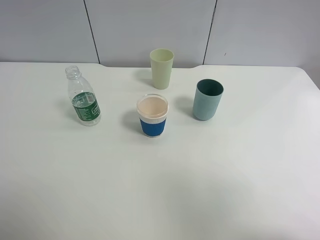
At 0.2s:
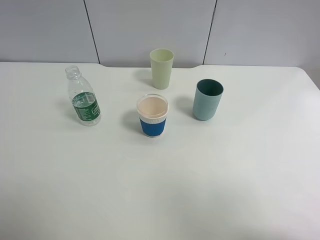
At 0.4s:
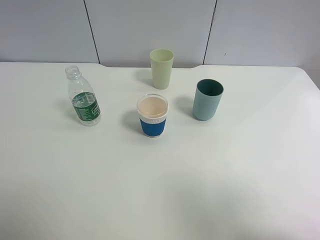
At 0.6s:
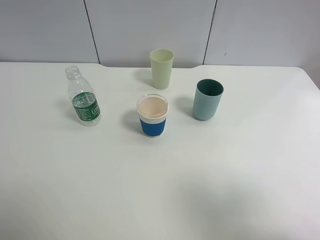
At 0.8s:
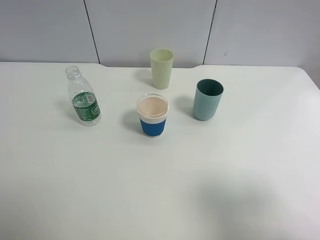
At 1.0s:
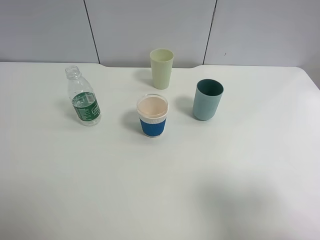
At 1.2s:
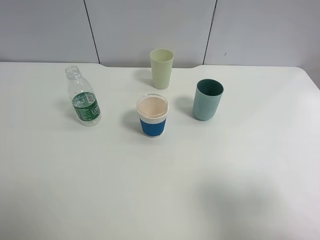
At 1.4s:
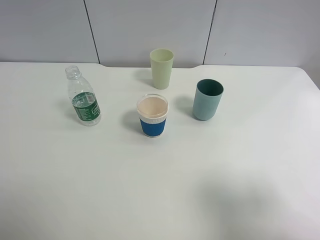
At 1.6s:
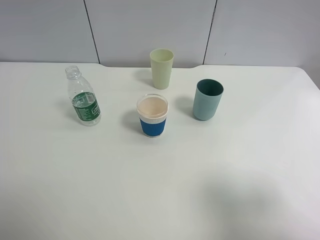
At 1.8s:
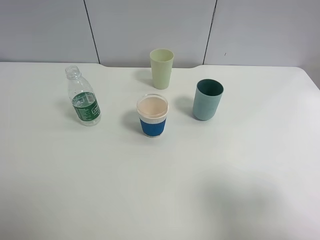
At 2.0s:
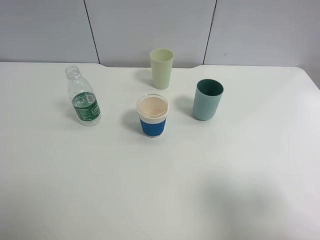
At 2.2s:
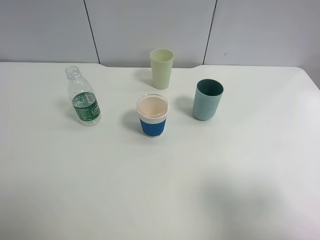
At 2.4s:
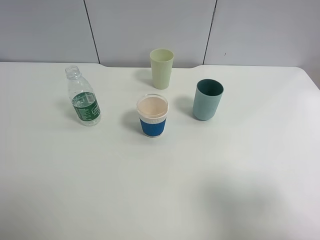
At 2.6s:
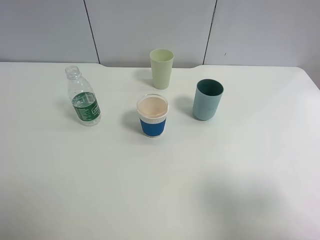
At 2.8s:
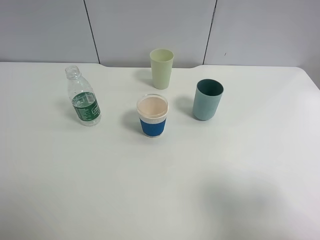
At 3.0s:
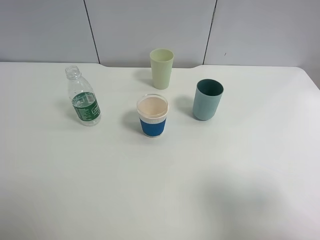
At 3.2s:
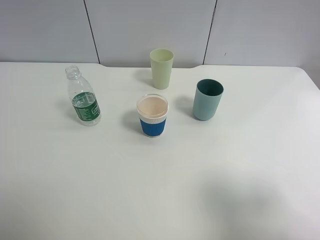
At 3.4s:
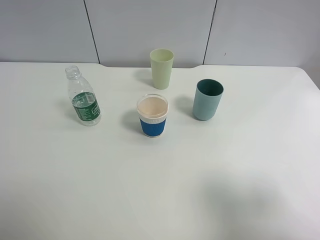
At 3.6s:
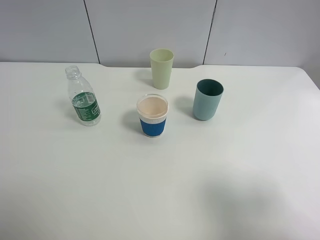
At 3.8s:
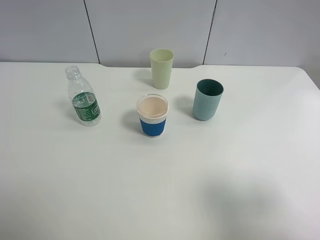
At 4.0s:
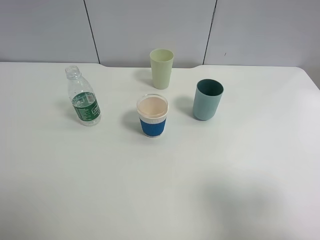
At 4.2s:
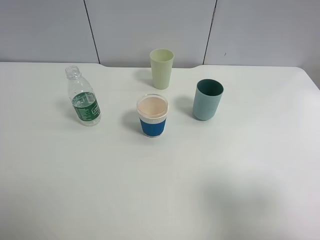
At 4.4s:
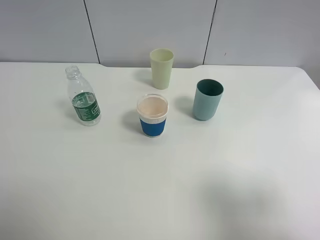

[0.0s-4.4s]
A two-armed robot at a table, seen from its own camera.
Task of the whole recording: use a clamp to hold the bottle of the drink, pour the beverage into a random cup, then clamp the cup containing the drink and pour the drink into another random cup.
0.0s to 1.4s: The right gripper moves downward, about 10 cm.
1.4s to 4.4s: Neither gripper changes place.

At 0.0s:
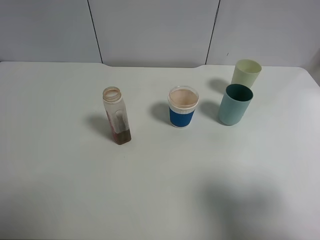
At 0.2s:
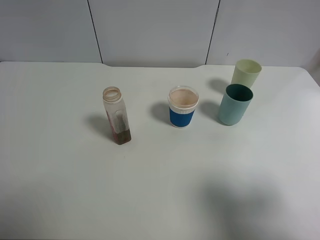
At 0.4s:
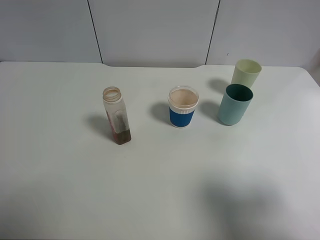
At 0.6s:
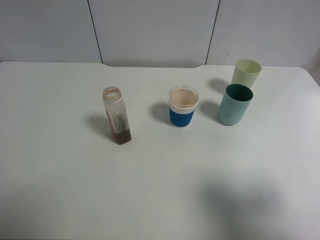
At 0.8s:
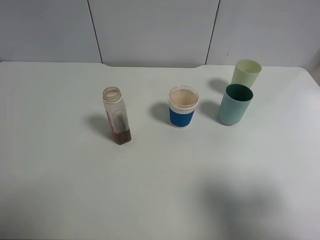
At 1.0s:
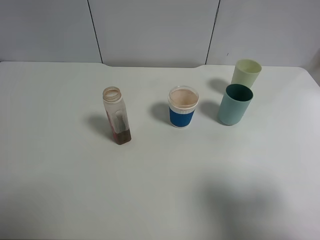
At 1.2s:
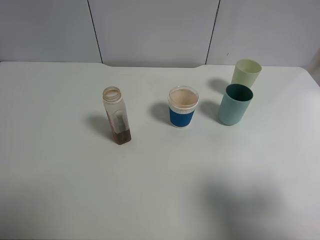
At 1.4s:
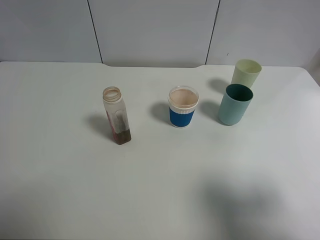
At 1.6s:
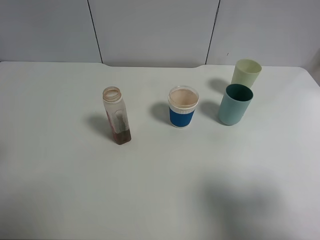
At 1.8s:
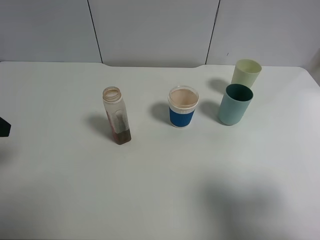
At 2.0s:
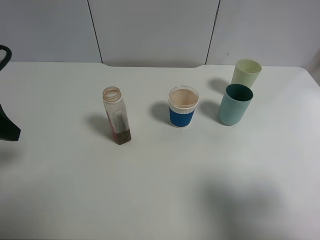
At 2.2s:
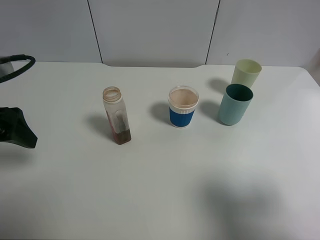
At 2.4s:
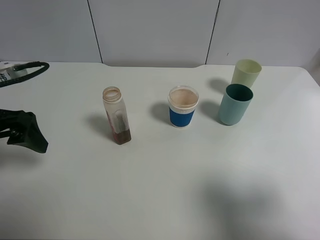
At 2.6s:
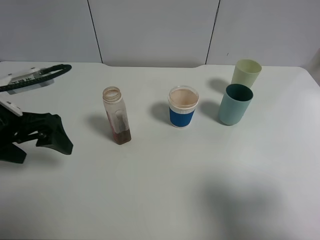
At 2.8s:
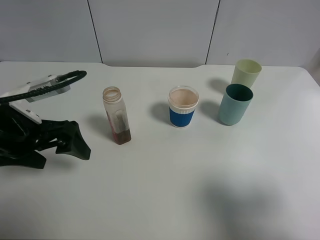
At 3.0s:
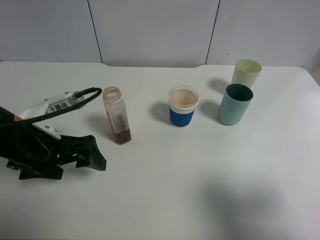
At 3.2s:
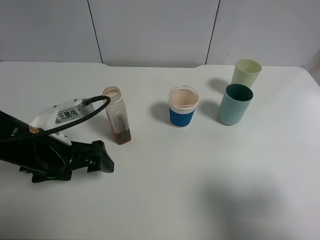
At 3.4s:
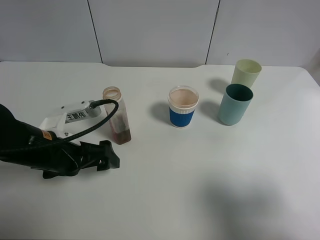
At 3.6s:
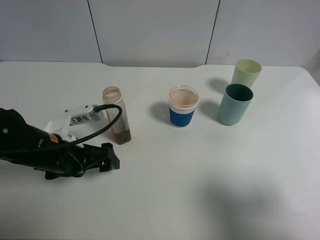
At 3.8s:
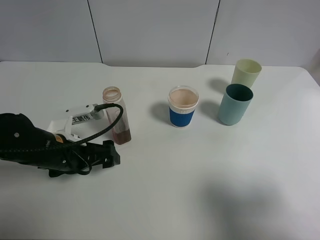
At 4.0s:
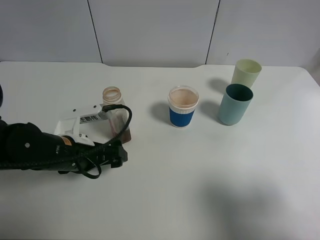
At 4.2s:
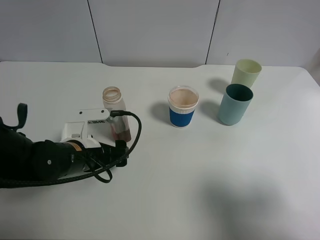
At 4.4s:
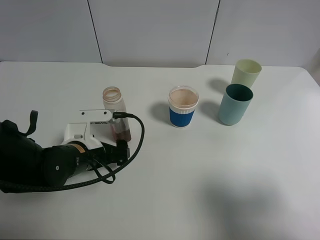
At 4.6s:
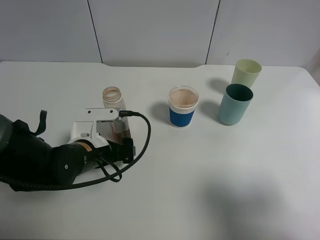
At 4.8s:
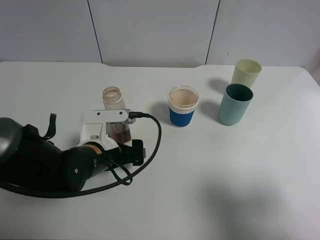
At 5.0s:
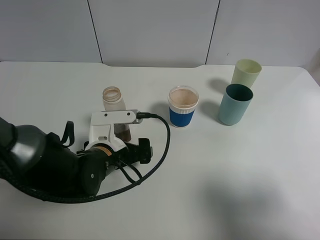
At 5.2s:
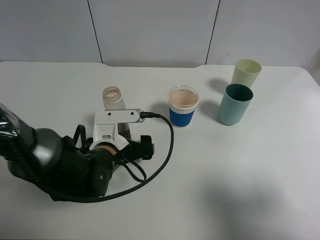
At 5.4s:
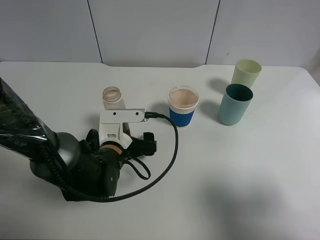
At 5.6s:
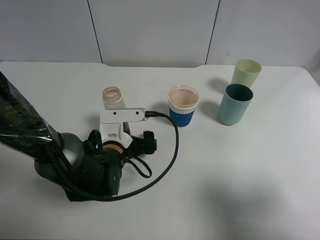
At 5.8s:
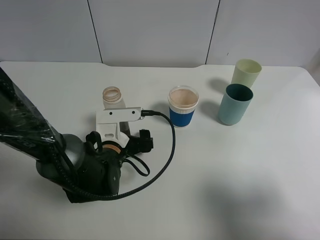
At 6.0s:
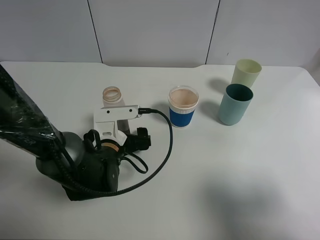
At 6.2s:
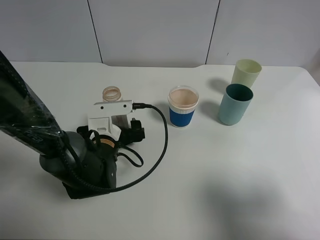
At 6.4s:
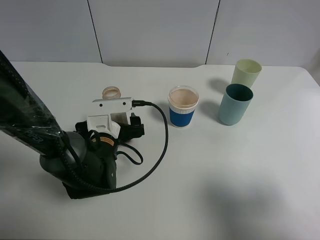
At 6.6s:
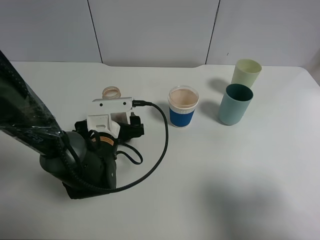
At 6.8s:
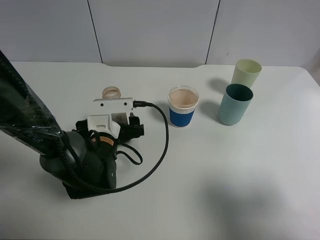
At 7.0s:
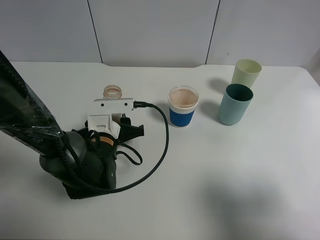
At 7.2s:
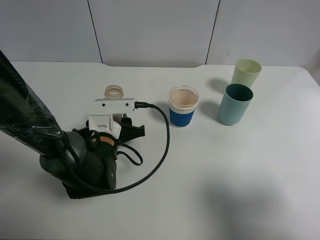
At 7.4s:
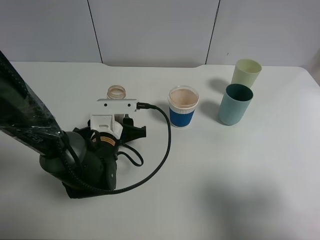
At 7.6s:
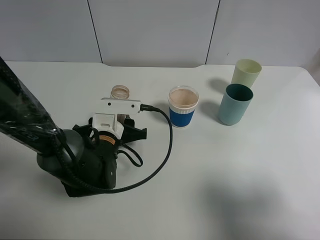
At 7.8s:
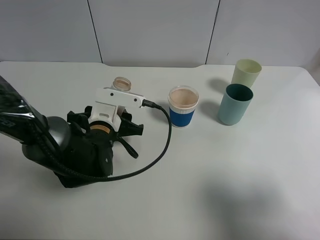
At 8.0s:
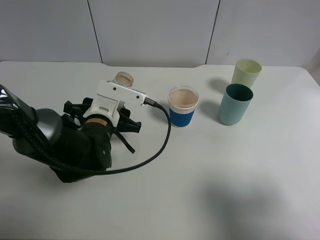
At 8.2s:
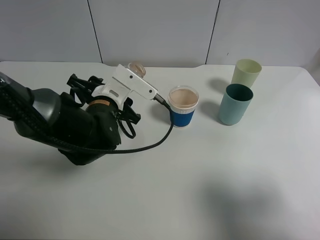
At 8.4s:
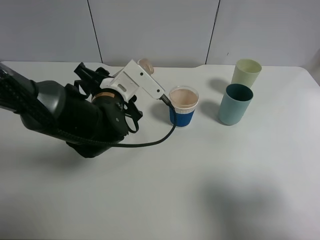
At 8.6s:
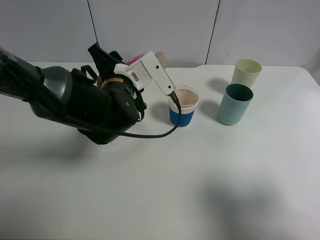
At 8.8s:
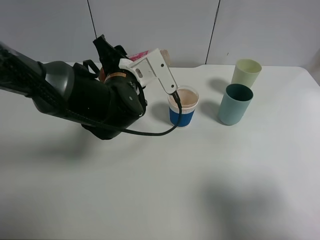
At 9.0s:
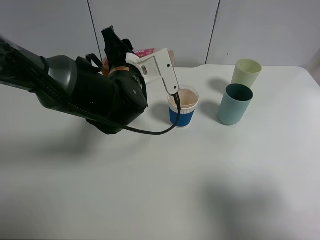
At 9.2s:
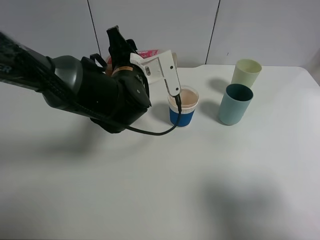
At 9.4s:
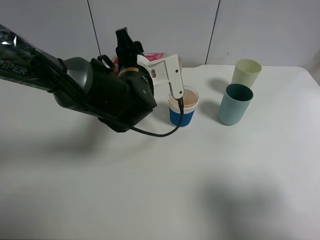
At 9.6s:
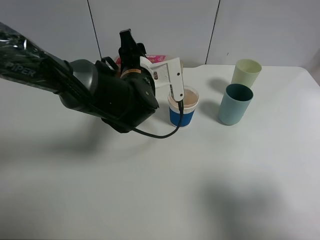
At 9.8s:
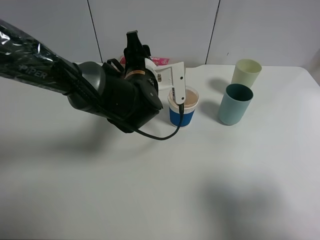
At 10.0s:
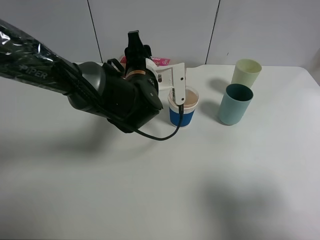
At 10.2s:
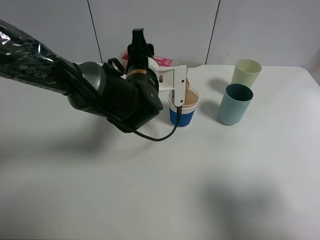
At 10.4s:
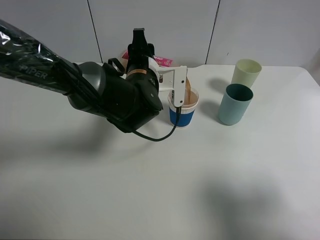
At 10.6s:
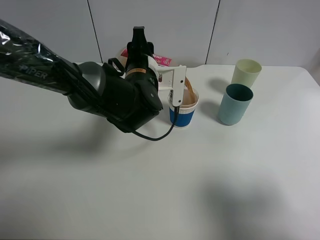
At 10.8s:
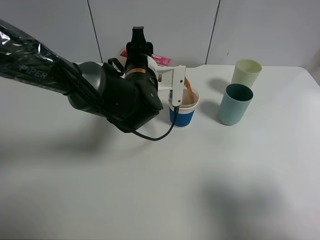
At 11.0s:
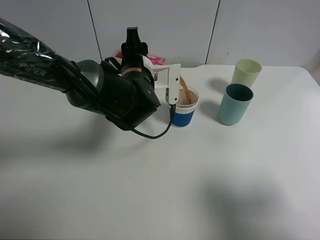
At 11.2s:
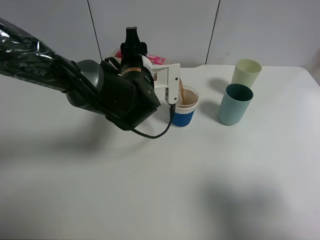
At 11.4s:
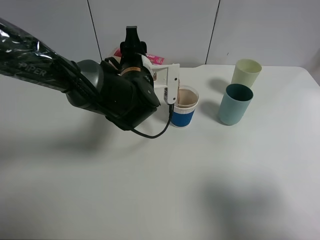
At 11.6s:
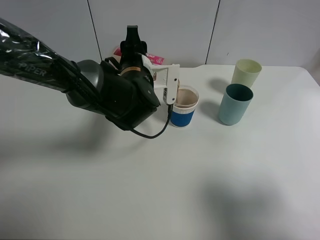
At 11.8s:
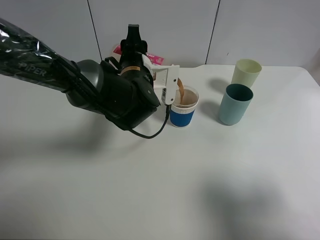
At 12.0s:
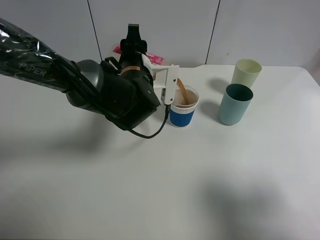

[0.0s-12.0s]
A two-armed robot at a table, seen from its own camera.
Task of the whole recording: use a clamp to hold the bottle of the drink, pour the beverage into a random cup, then clamp the cup containing the drink and pour the drink into another random cup.
Step, 0.0s to 8.0s: Pick up the drink bottle with left gripper.
1.6s to 3.0s: The left gripper is displaced downward, to the right and forward by some 15 cm.
3.0s to 4.4s: The left gripper moves downward, approximately 10 cm.
4.4s to 6.0s: The left gripper shifts by some 5 cm.
6.0s to 7.6s: The left gripper closes up.
7.6s to 9.0s: The left gripper travels upward and forward by some 10 cm.
9.0s to 10.4s: The grippers move only a little.
10.4s to 12.0s: The grippers make only small movements.

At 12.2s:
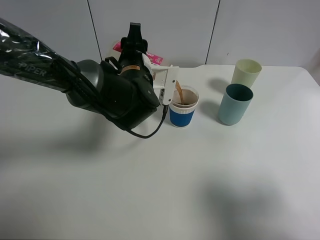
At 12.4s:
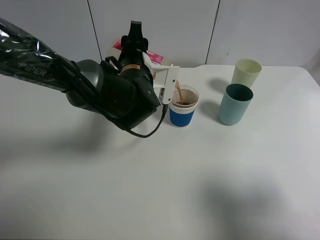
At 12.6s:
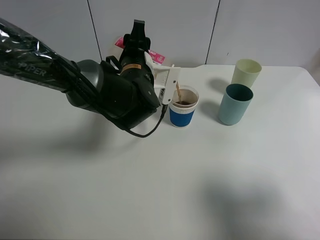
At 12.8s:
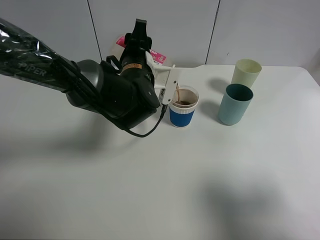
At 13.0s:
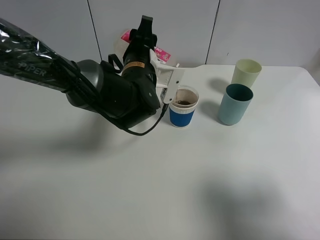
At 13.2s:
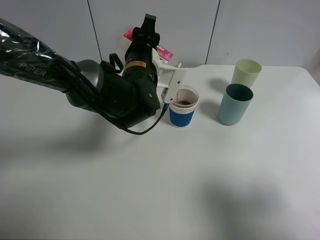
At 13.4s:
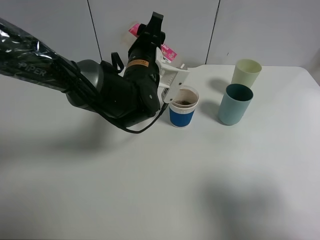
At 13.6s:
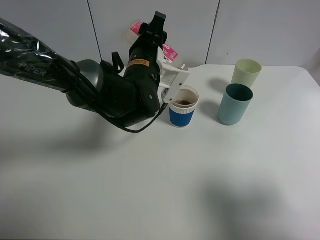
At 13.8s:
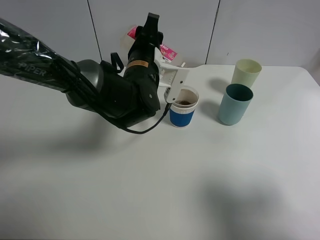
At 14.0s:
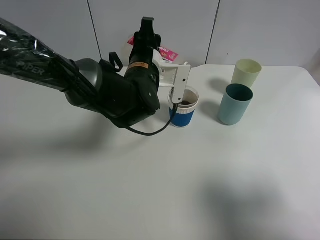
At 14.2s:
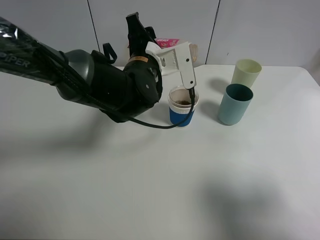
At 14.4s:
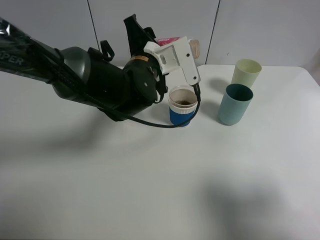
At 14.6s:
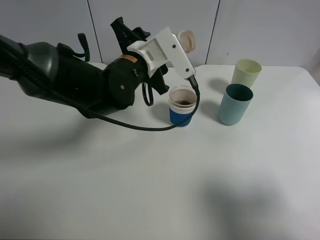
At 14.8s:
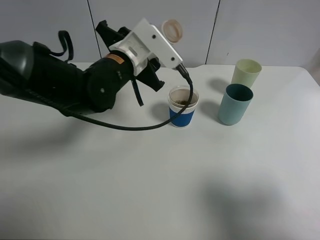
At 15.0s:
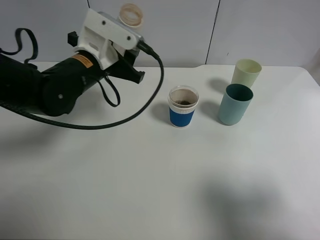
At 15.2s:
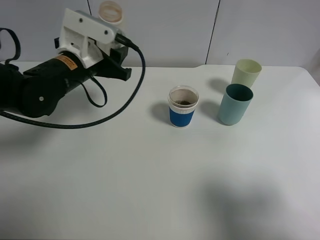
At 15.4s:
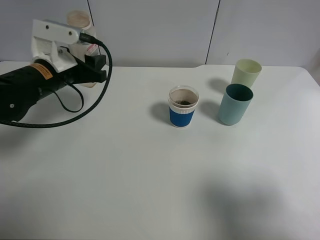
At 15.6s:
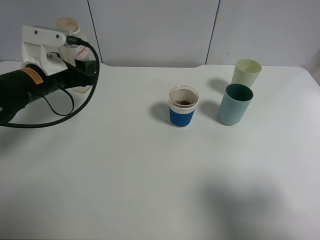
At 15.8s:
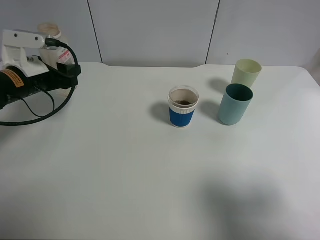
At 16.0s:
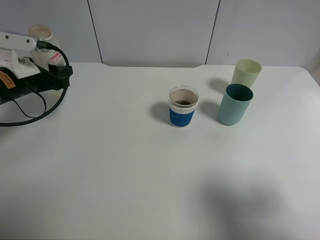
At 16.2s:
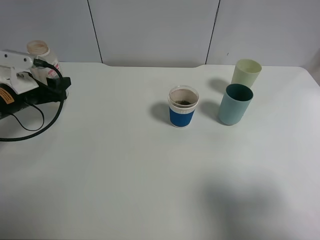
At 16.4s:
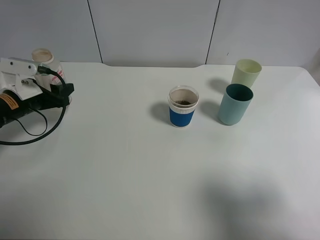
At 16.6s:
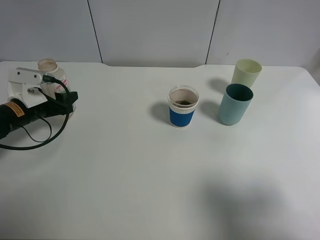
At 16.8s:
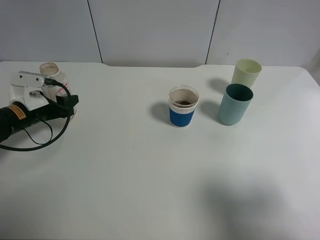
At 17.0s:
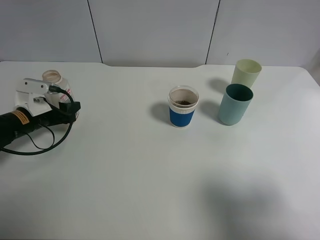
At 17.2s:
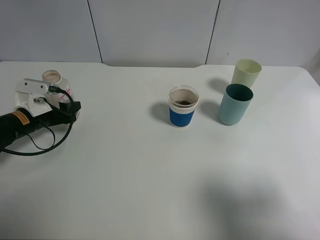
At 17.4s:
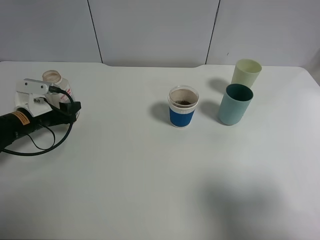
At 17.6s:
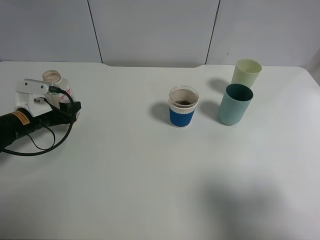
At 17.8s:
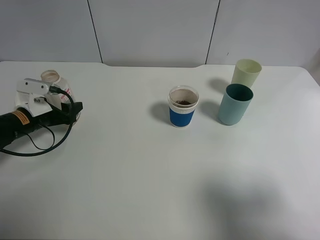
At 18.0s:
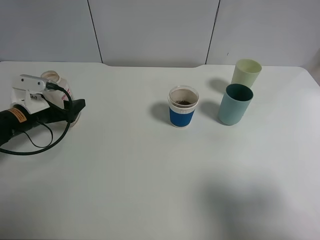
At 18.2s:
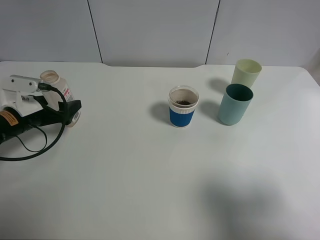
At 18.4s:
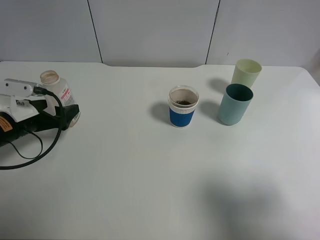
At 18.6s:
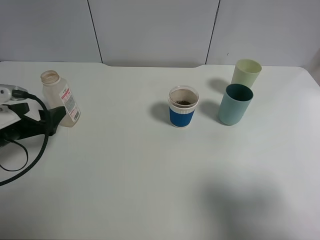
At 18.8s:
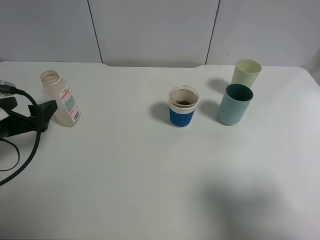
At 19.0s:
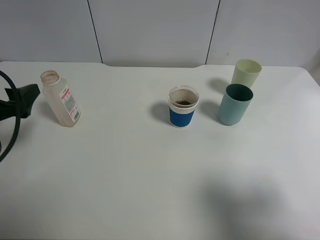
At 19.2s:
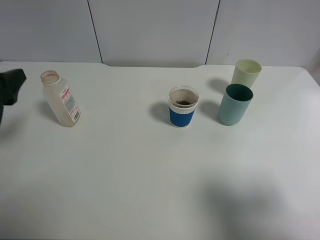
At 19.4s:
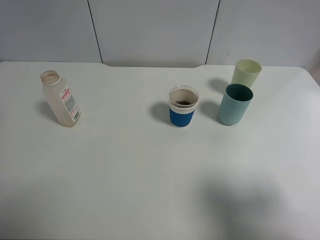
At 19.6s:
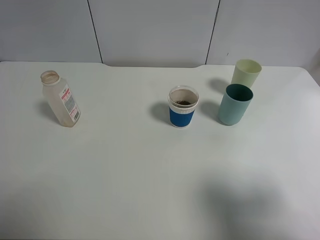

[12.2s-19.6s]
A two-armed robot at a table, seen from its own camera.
Task of the whole recording: use a clamp to hold the bottle of the drink, pour the beverage into a random cup, then clamp the cup containing the drink and pour the drink into another random cup.
Step, 14.2s to 18.2s: Place the drink bottle on the table with left gripper.
12.2s to 13.6s: The grippers stay close to where they were, moving slightly.
13.6s to 15.2s: The left gripper heads to the left, covering about 10 cm.
15.2s to 16.6s: The left gripper goes approximately 20 cm to the left and downward.
16.6s to 18.2s: The left gripper opens up.
18.2s to 19.6s: The left gripper travels upward and backward by approximately 25 cm.
